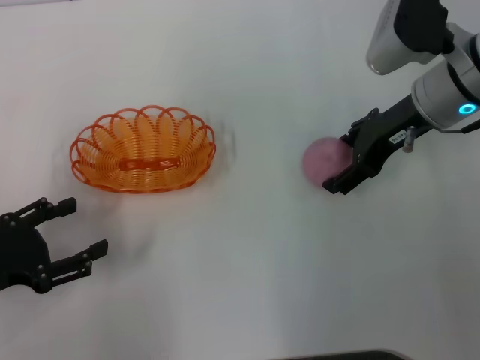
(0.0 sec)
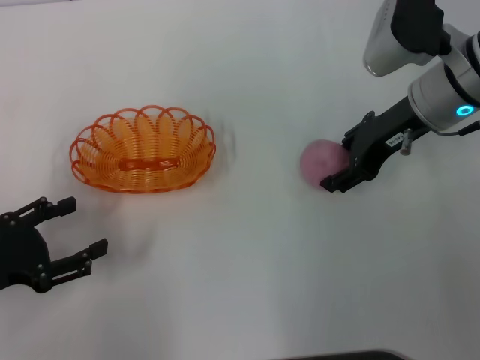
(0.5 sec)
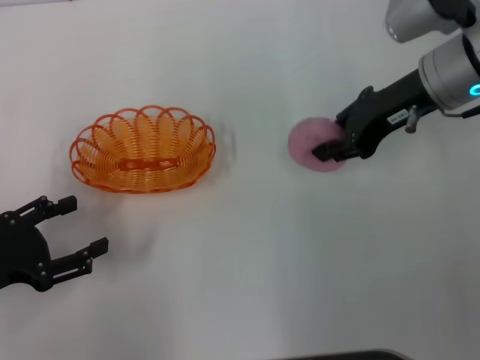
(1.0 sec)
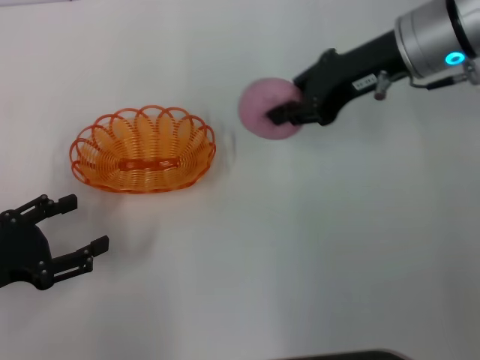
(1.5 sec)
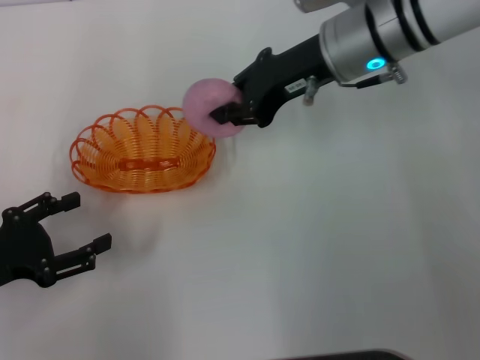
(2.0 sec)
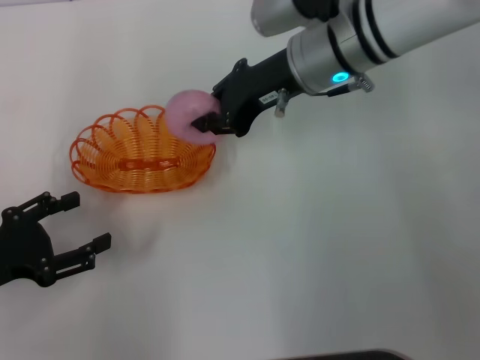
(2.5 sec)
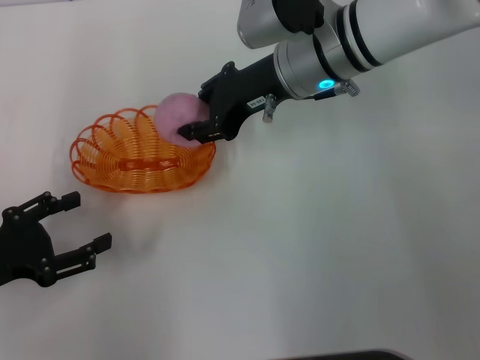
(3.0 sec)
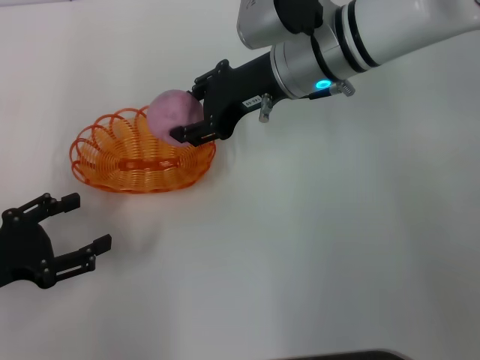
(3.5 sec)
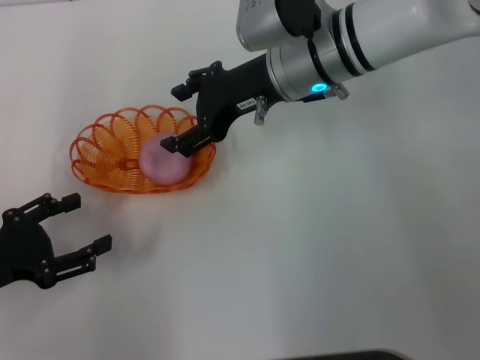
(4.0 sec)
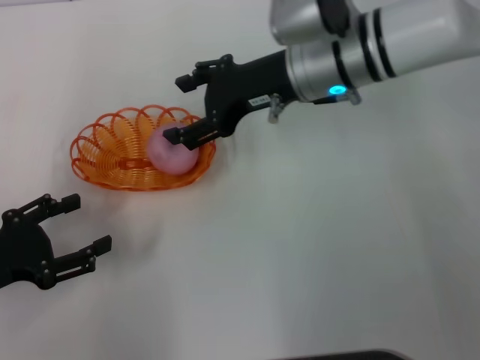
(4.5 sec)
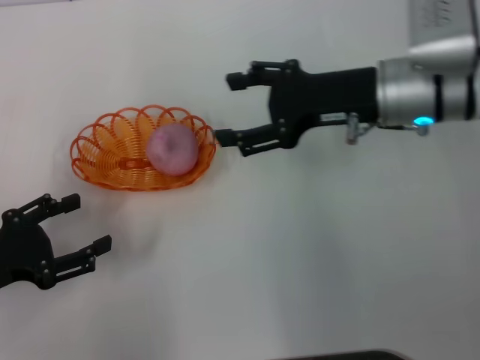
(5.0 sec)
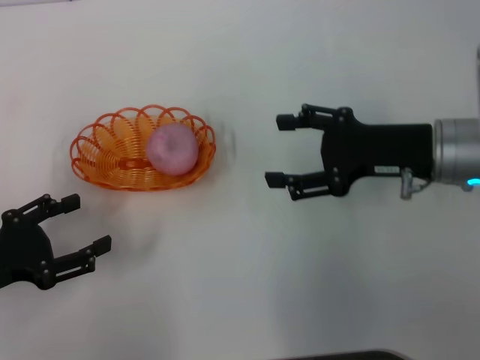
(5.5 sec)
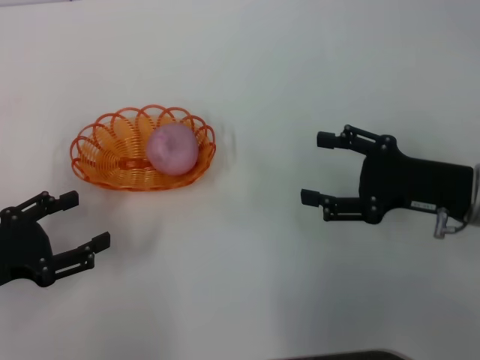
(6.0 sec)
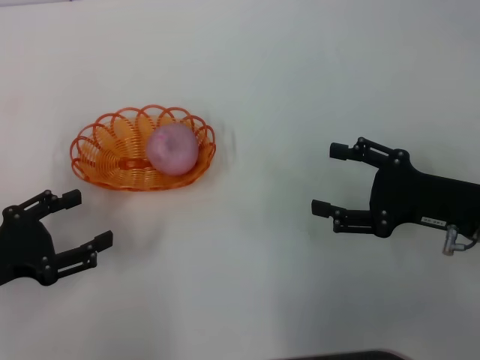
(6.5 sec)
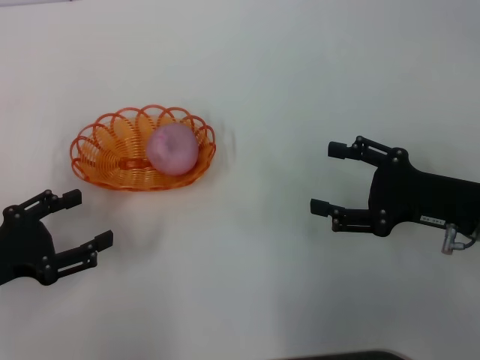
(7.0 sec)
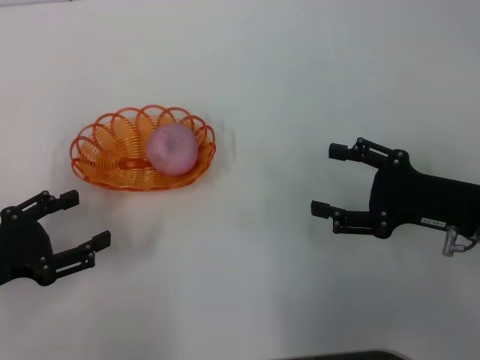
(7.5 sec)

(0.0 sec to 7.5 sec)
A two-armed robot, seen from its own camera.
Step, 2.0 sec - 5.5 sec: Place the peach into the basket with the right gripper.
0.0 sec - 2.0 sec: The right gripper heads to the left, covering roughly 10 cm, and closes up.
2.0 sec - 4.0 sec: The right gripper opens its fingers.
4.0 sec - 5.5 sec: The right gripper heads to the right and backward, covering approximately 15 cm.
5.5 sec - 7.5 sec: The right gripper goes roughly 5 cm backward.

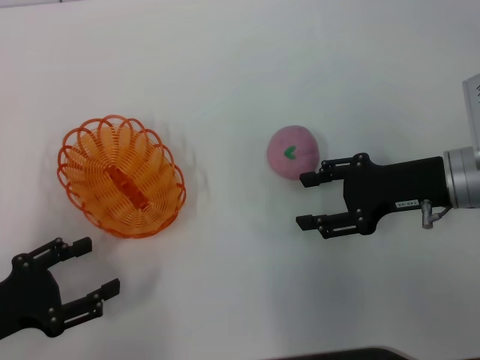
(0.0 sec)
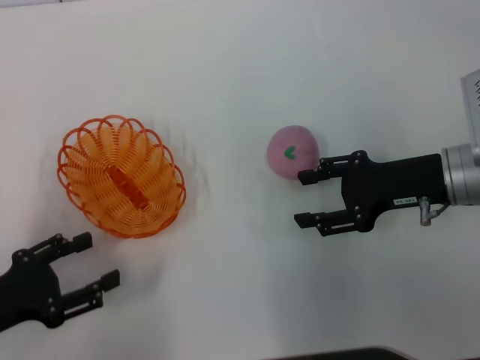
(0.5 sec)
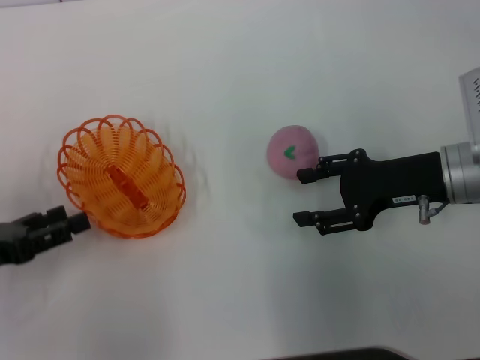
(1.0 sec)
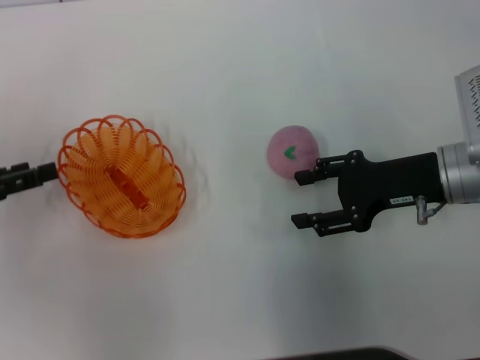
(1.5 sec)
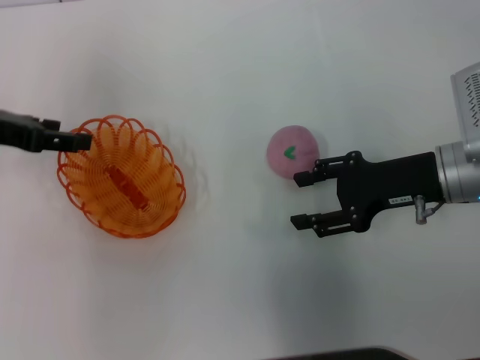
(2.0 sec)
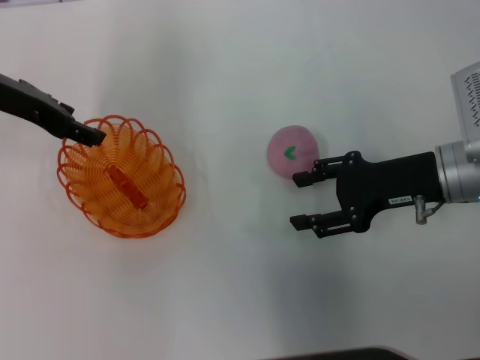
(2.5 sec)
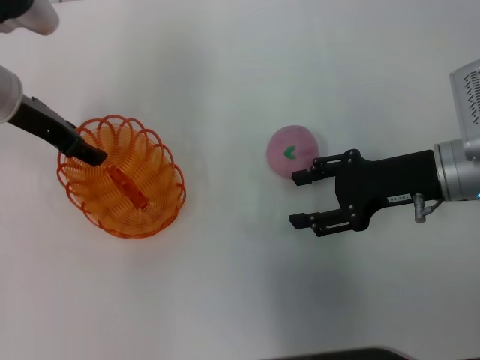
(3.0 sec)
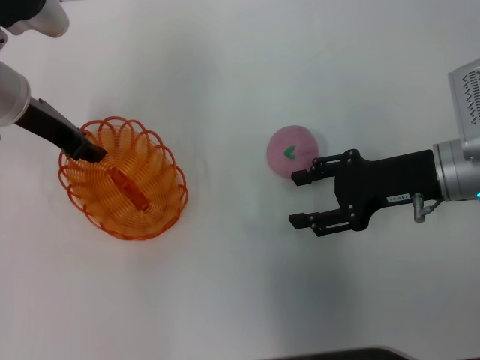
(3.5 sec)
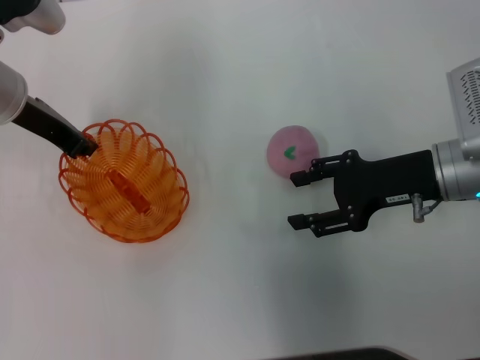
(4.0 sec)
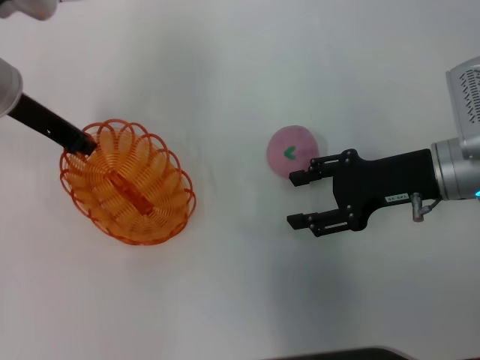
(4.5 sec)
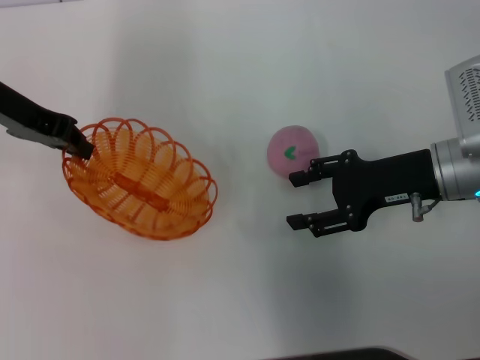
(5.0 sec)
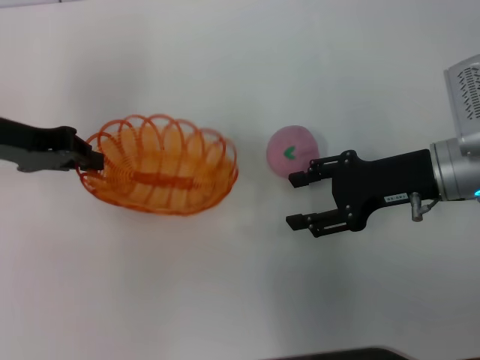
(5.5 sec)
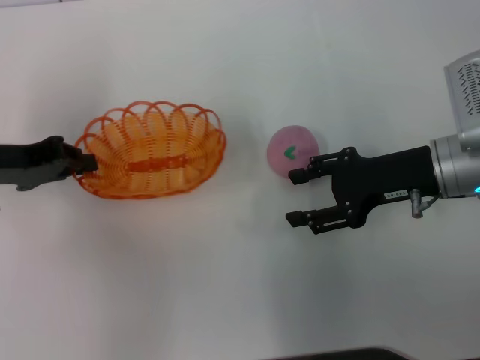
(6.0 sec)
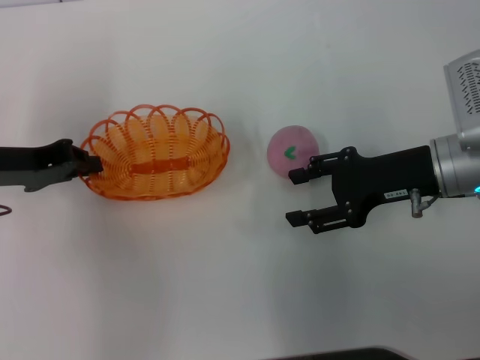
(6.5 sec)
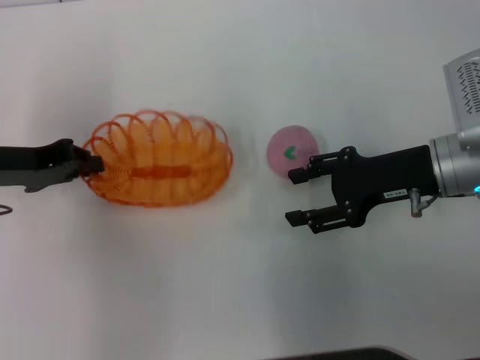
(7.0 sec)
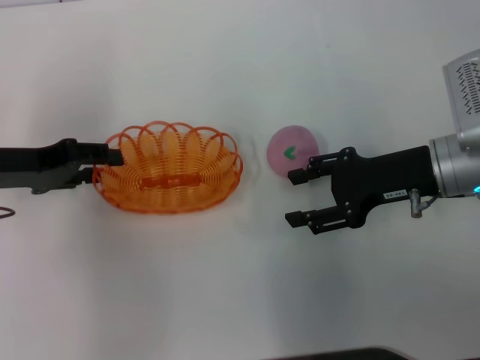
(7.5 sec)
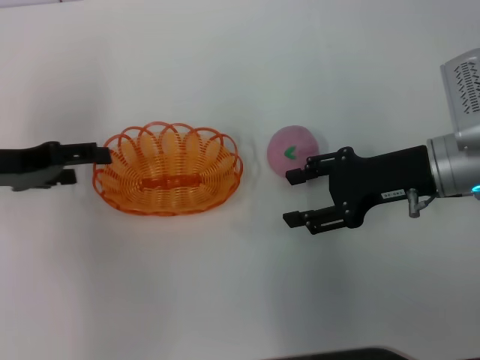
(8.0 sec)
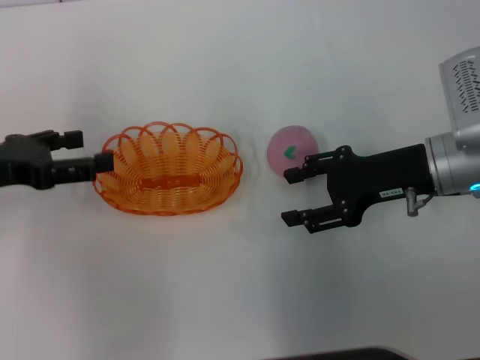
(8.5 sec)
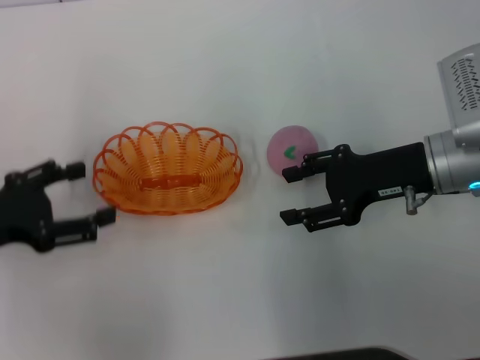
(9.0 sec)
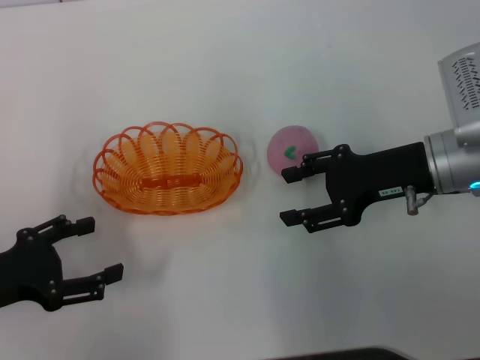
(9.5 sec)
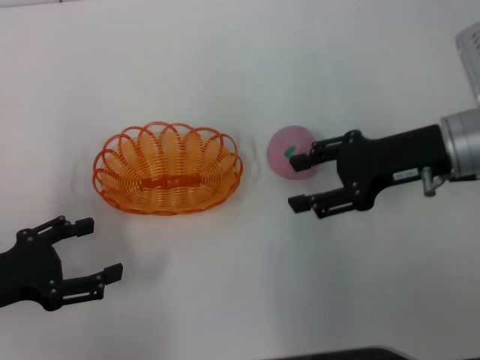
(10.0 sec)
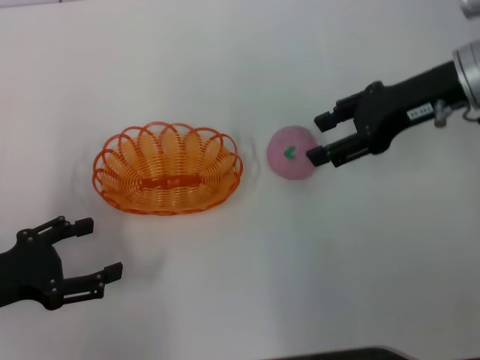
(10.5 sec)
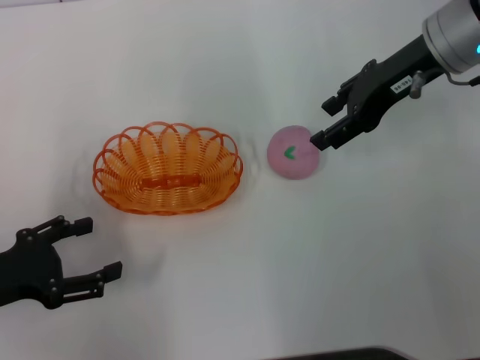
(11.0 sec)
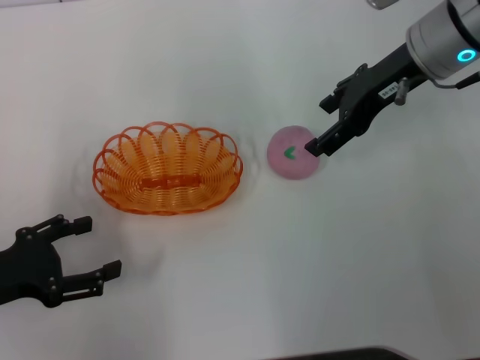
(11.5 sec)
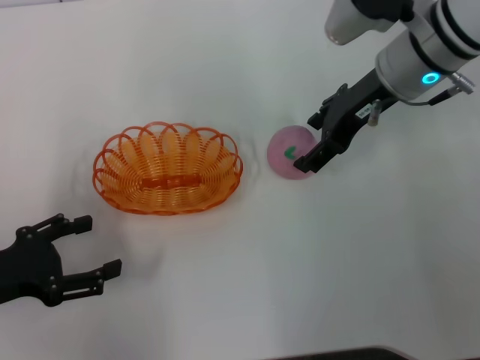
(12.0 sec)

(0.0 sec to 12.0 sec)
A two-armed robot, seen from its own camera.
Step, 0.0 sec - 4.5 sec: Pick up the basket with the left gripper.
Step, 5.5 sec - 8.0 sec: Place the basket in the center of view with the left gripper.
0.0 sec - 2.0 sec: The left gripper heads forward and upward, covering roughly 20 cm.
2.0 sec - 4.0 sec: The left gripper goes roughly 10 cm to the right, and closes its fingers.
4.0 sec - 6.0 sec: The left gripper shifts about 10 cm backward and to the left.
6.0 sec - 8.0 sec: The left gripper opens up.
8.0 sec - 10.0 sec: The left gripper shifts about 10 cm backward and downward.
10.0 sec - 12.0 sec: The right gripper heads forward and to the left, covering roughly 10 cm.

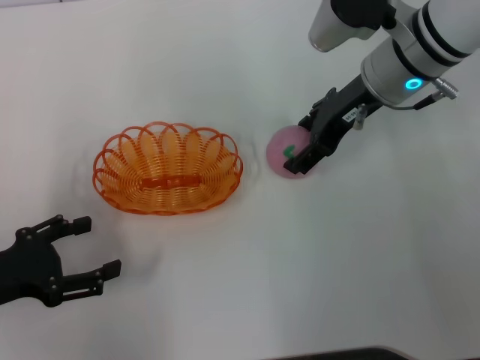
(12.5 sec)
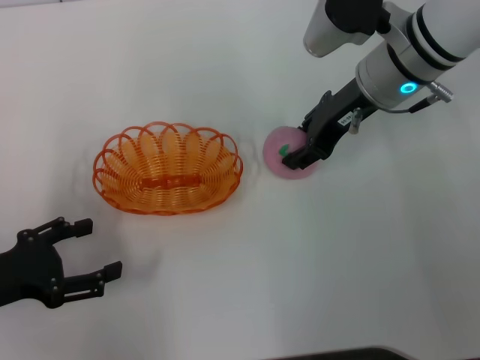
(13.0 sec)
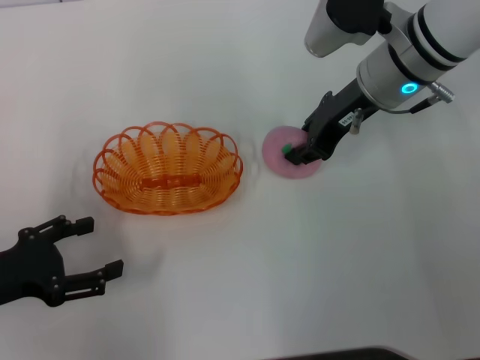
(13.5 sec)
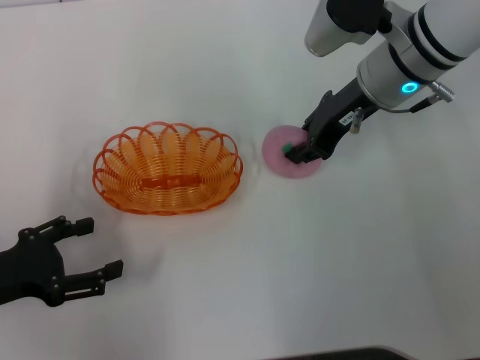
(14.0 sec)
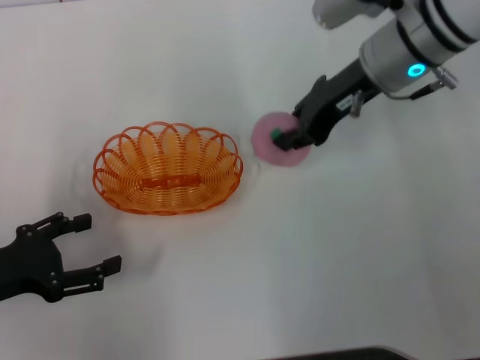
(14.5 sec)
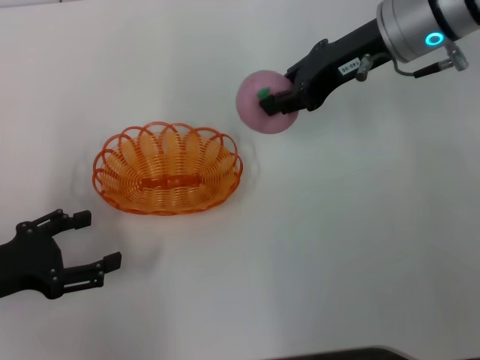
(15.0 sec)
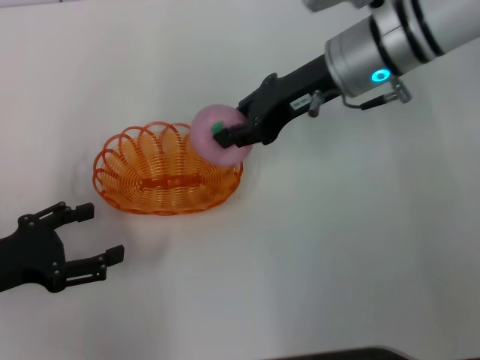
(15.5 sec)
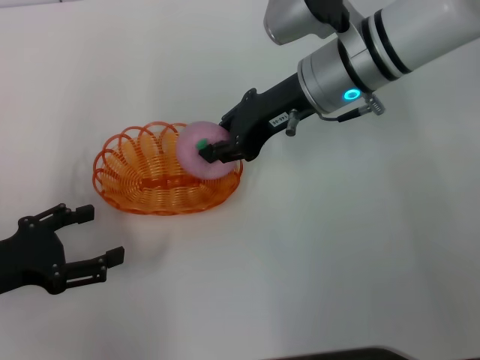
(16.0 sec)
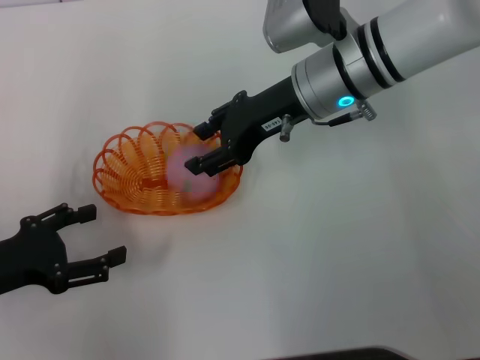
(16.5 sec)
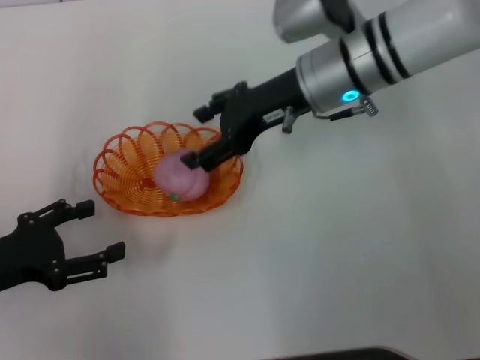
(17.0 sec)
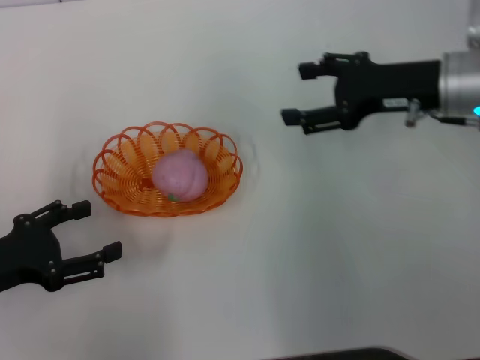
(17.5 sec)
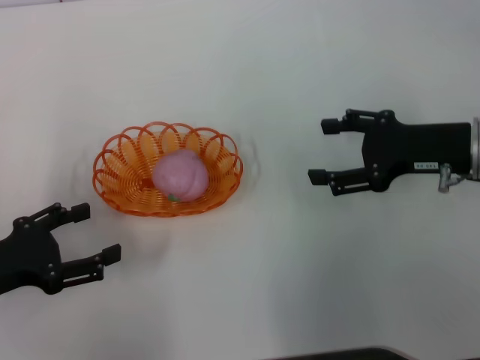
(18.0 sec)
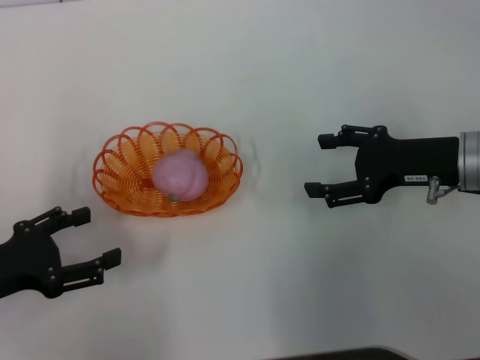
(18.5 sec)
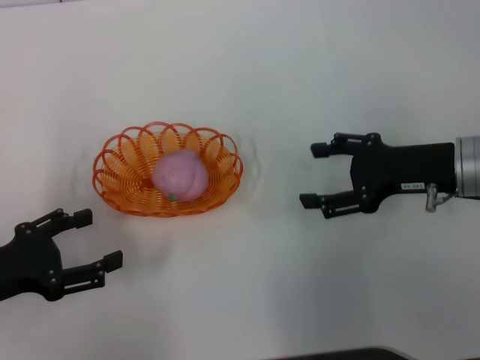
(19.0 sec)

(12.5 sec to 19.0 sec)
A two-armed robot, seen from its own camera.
Step, 12.5 sec - 14.5 sec: Pick up the peach with the right gripper.
Step, 15.0 sec - 17.0 sec: Place the peach into the basket with the right gripper.
12.5 sec - 14.5 sec: The right gripper closes.
14.5 sec - 17.0 sec: The right gripper changes place by approximately 5 cm, and opens.
17.0 sec - 19.0 sec: The right gripper heads to the right, backward and downward, covering about 20 cm.
